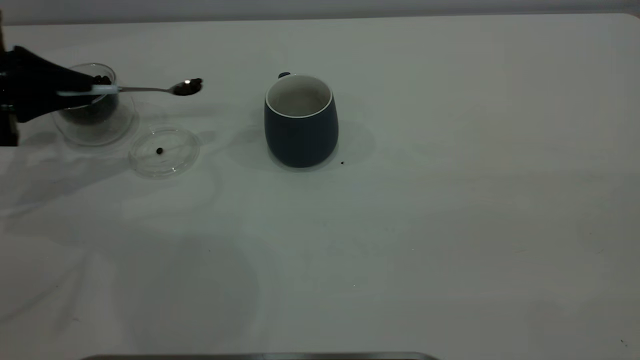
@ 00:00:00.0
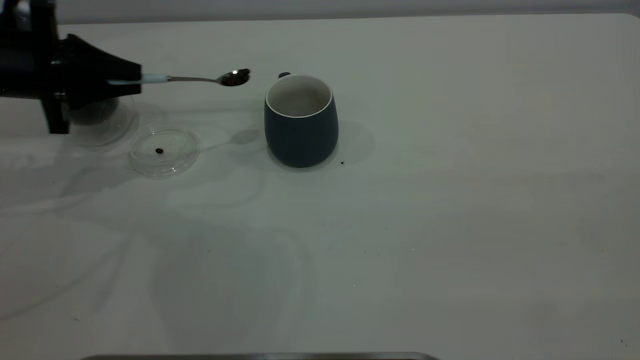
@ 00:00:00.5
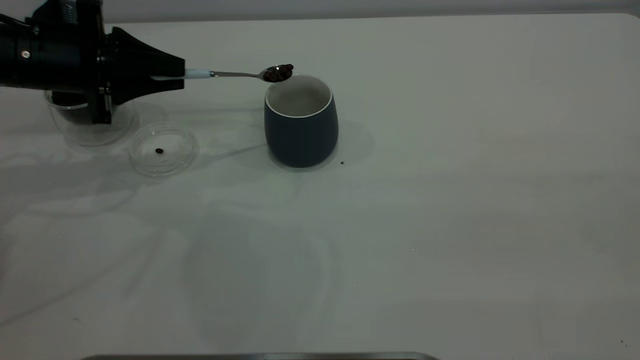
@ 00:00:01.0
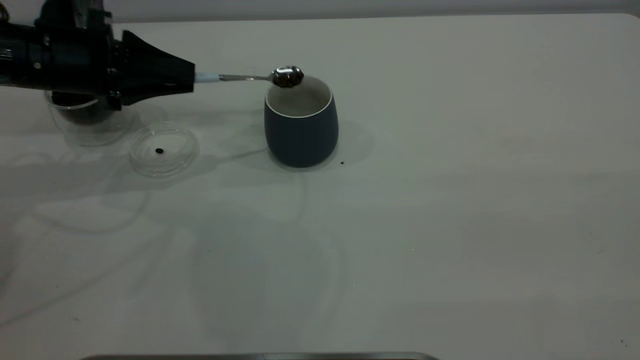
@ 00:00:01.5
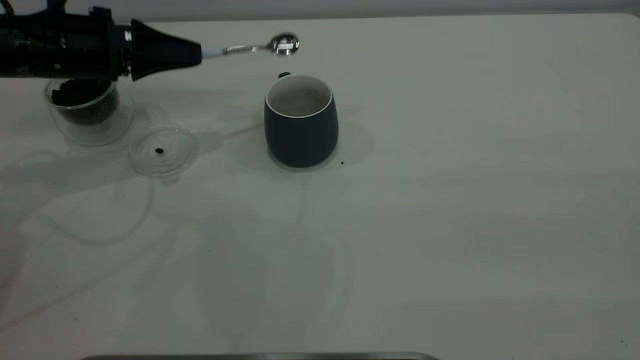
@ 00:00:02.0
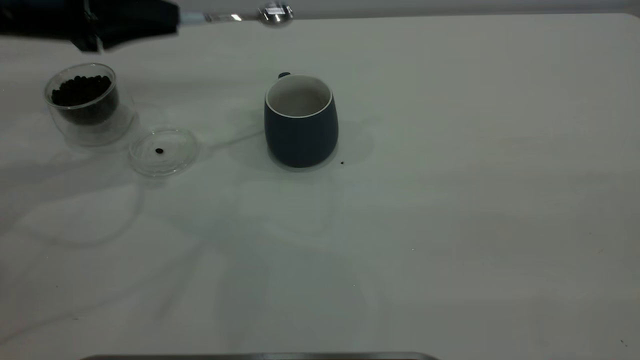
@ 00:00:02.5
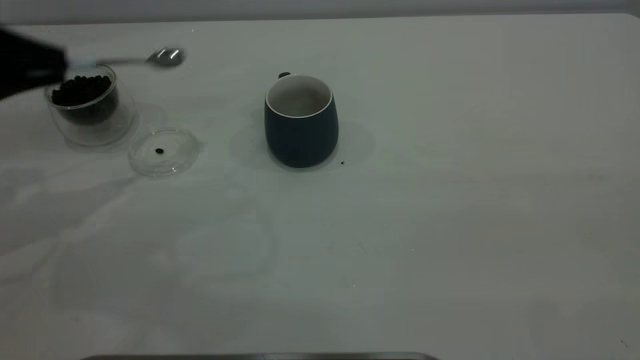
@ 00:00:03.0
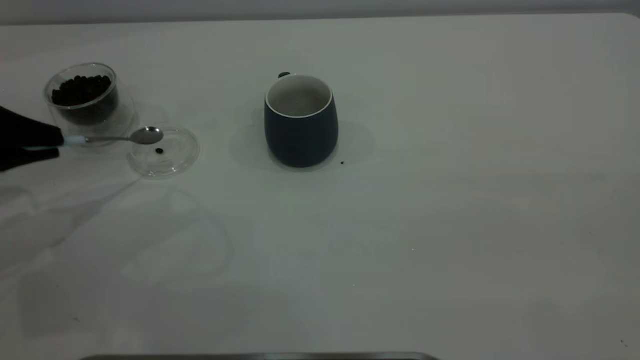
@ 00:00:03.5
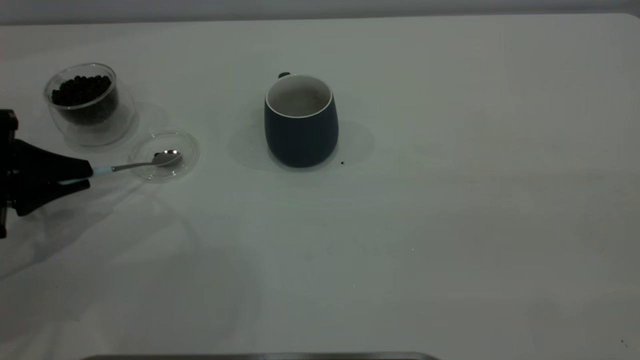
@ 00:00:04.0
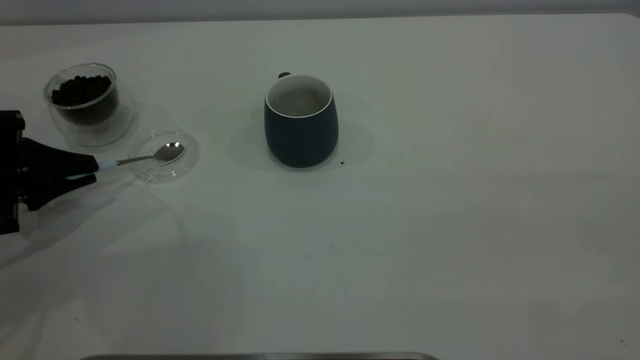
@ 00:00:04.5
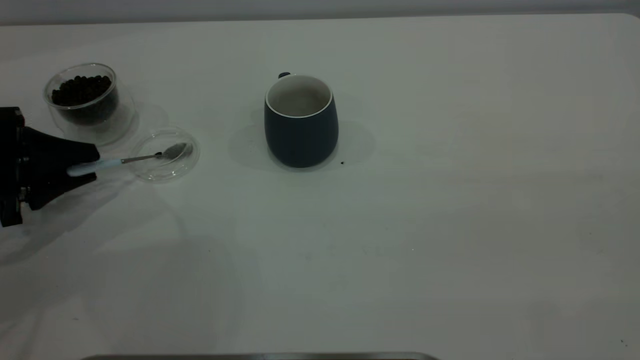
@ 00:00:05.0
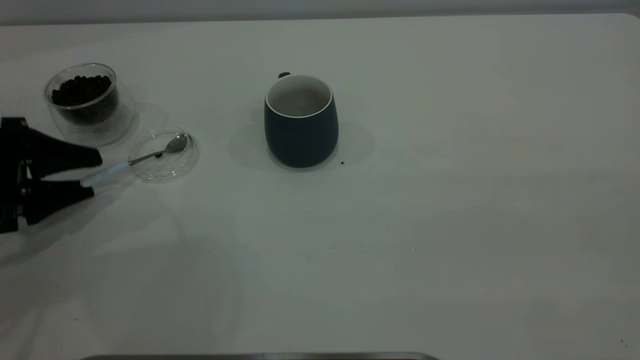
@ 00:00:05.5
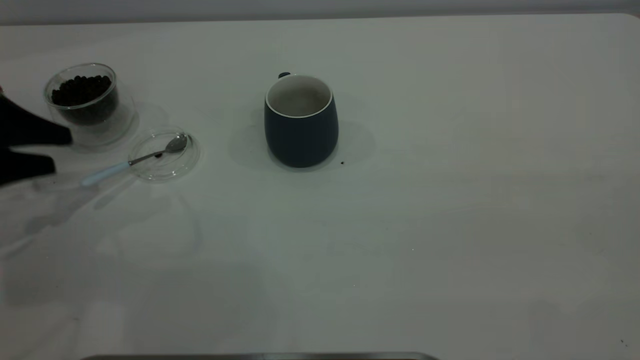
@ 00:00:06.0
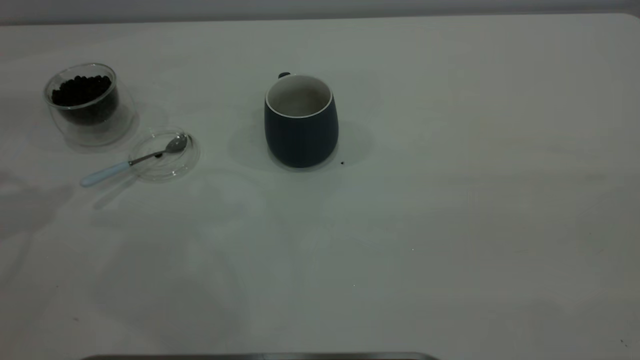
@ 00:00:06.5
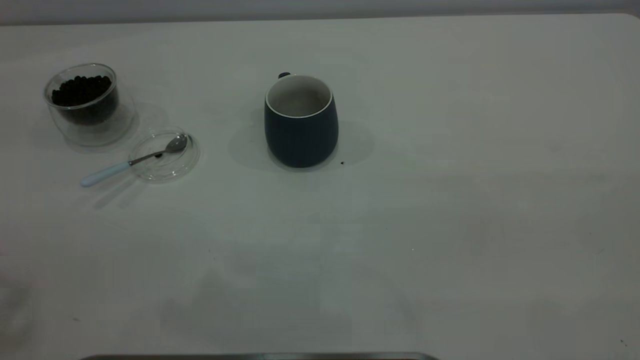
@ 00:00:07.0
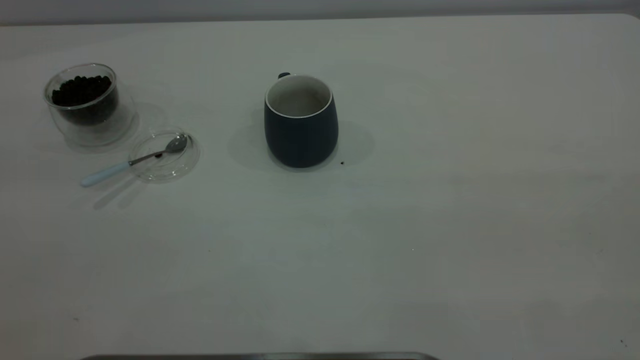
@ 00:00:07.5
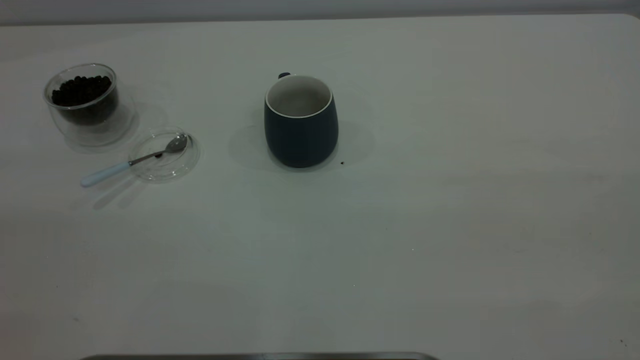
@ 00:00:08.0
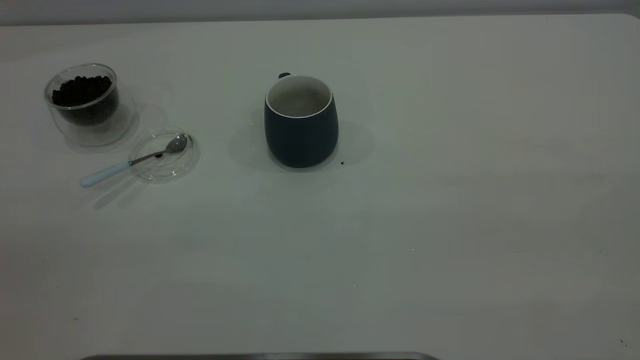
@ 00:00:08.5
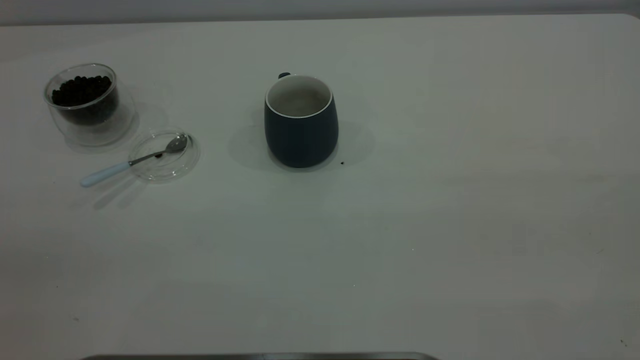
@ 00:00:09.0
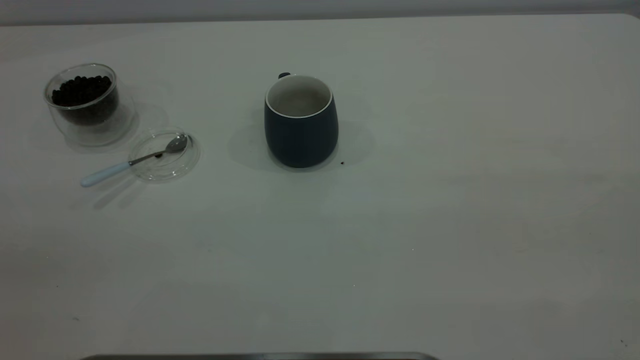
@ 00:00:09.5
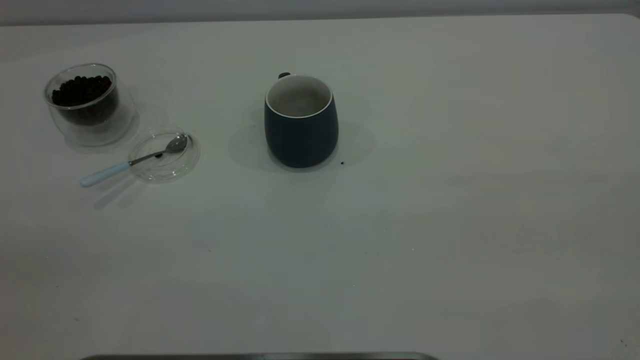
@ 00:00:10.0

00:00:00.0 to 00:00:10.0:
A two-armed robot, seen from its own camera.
Task of the whole recording: the right gripper place the grey cup in the center of the table, the left gripper take the blue spoon from the cup lid and scoop out the coffee beans from the coffee cup and put them into the grey cup, the left gripper put the spoon back into the cup lid.
Step, 00:00:00.0 to 00:00:02.0: Scoop a spoonful of beans into the cup.
Step, 00:00:02.5 to 00:00:06.0: Place the spoon back in its original place.
00:00:00.0 to 00:00:02.0: The left gripper moves to the right, some 10 cm.
00:00:02.0 to 00:00:04.0: The left gripper heads backward, to the left and downward, covering about 15 cm.
00:00:04.0 to 00:00:06.0: The left gripper moves roughly 5 cm, and opens.
00:00:06.0 to 00:00:08.0: The left gripper moves upward and backward, about 40 cm.
